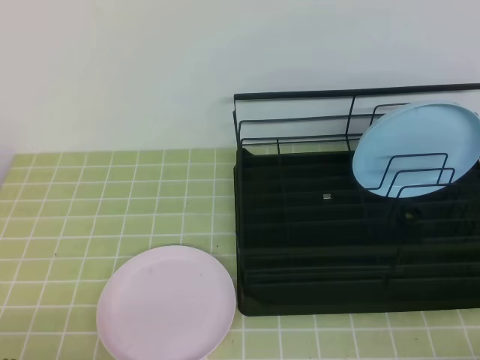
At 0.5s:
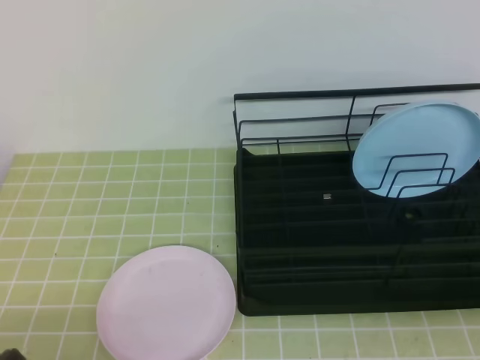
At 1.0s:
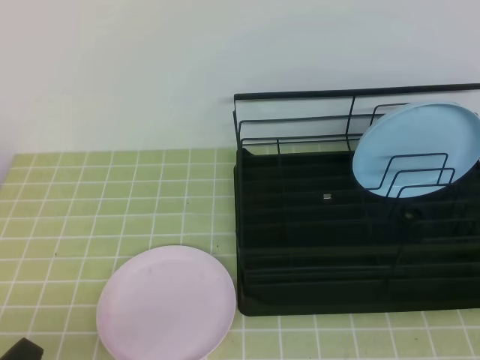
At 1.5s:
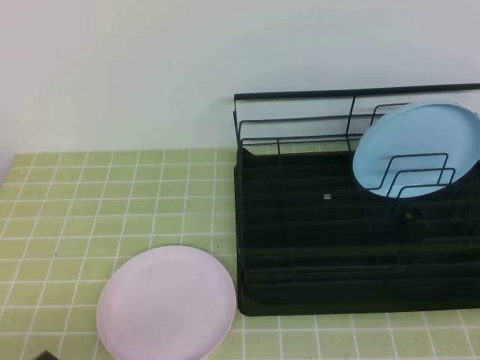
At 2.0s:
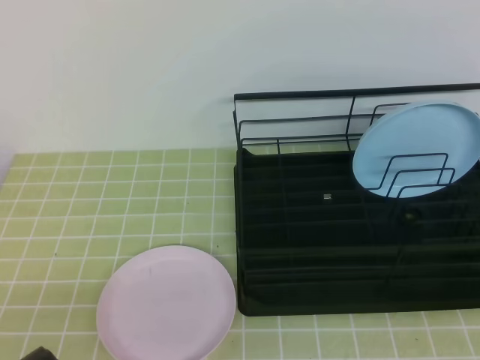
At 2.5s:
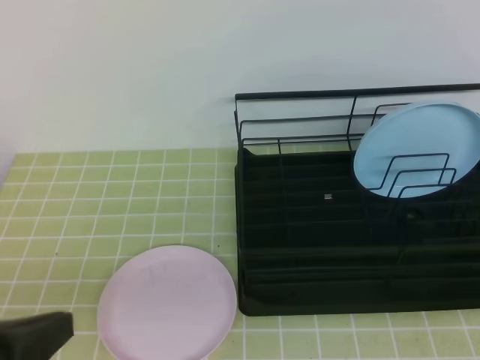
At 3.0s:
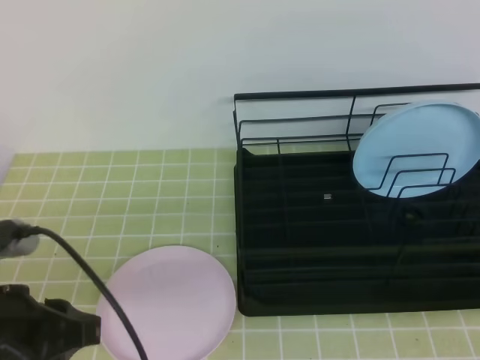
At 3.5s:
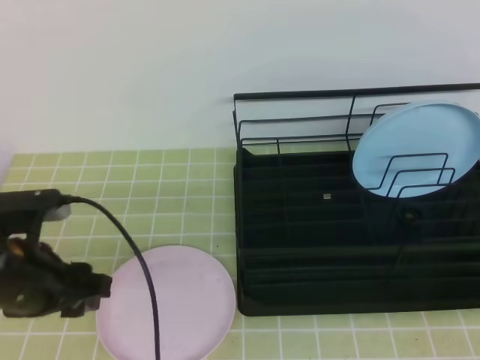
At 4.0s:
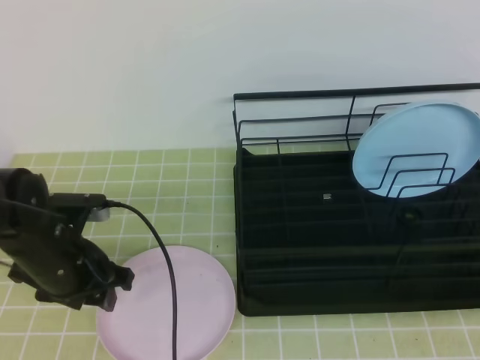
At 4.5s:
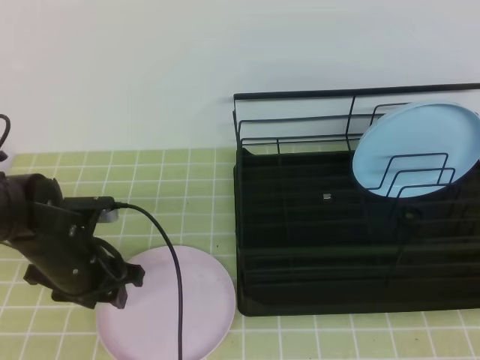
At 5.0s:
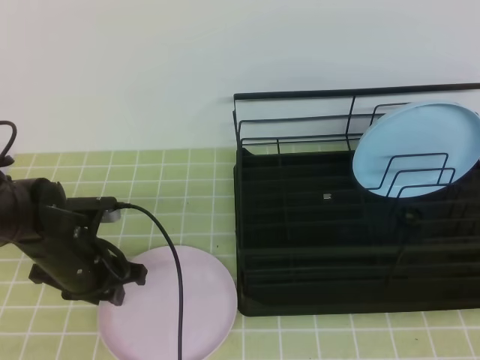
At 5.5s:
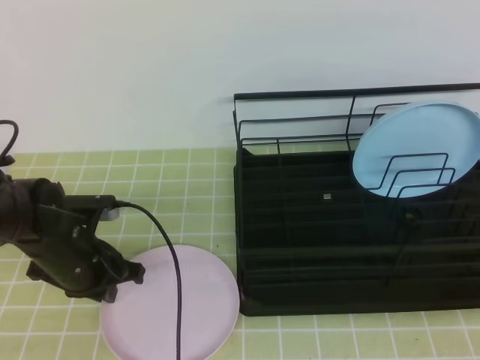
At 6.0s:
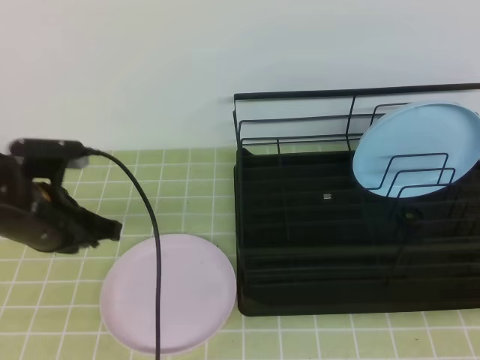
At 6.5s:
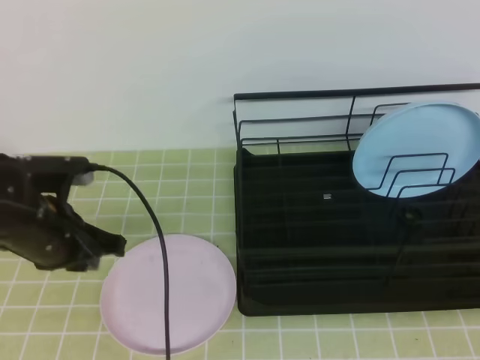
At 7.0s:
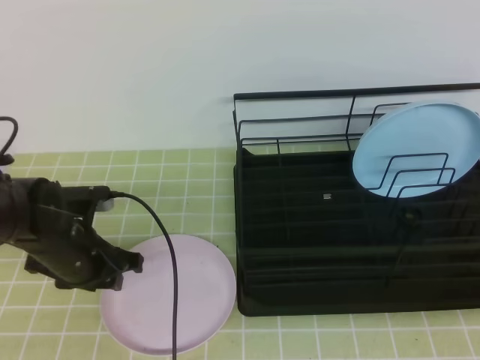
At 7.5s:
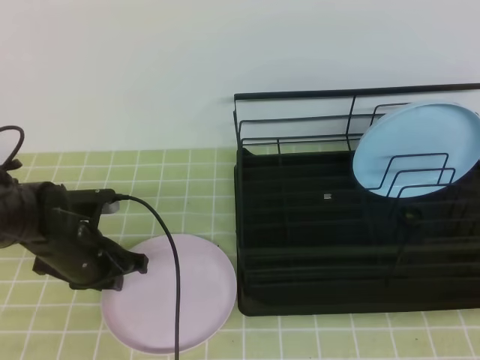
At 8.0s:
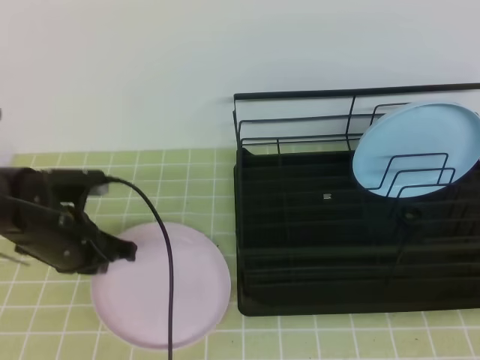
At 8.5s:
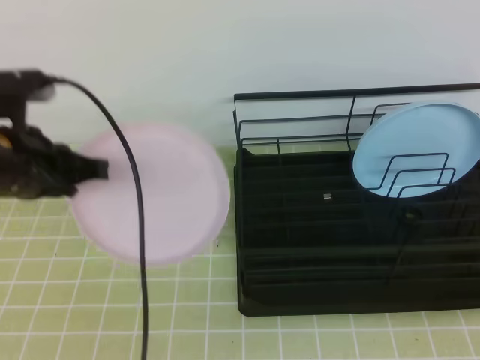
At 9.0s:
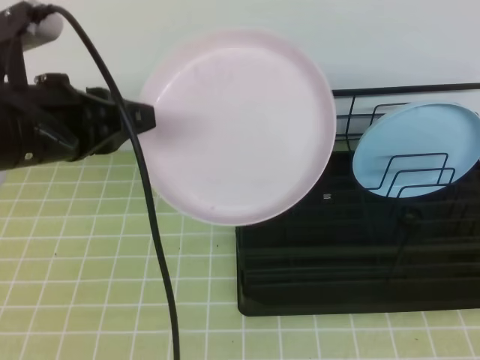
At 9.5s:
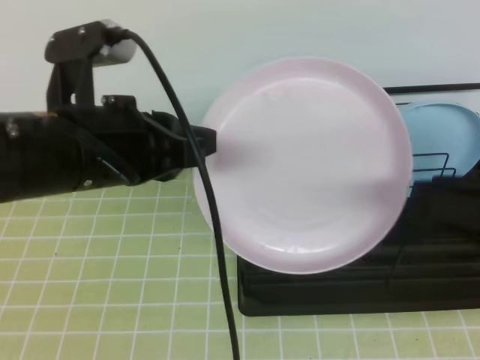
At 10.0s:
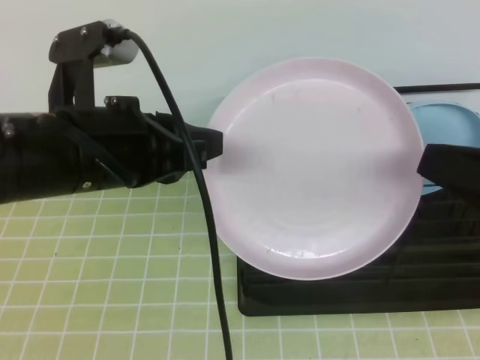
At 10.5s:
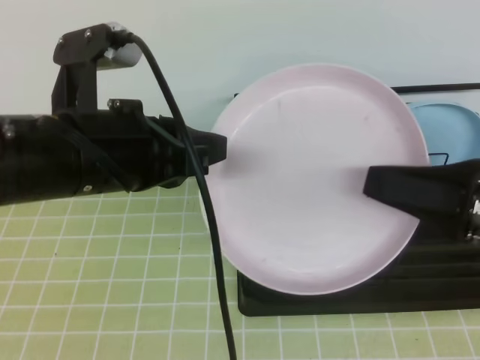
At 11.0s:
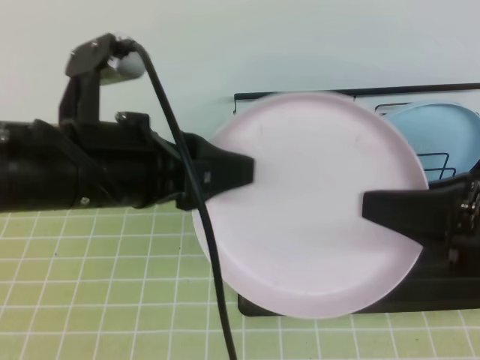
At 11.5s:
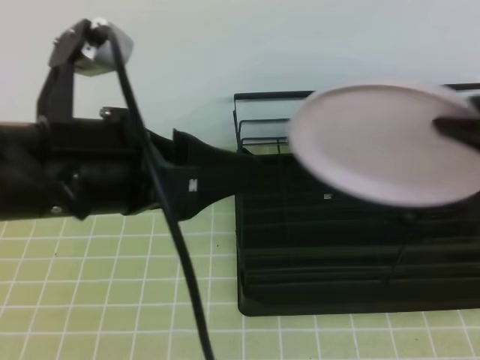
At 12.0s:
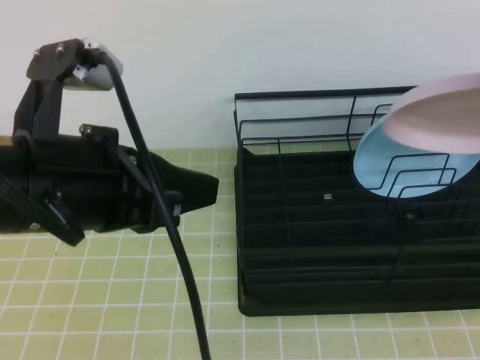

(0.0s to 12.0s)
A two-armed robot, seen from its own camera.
2.0s - 4.0s: The left gripper goes roughly 25 cm forward, and opens up.
4.0s - 6.0s: The left gripper closes up.
6.0s - 8.0s: The left gripper opens, then closes once more.
8.0s - 10.0s: The right gripper shifts about 10 cm forward, and opens its fingers. The left gripper heads upward, backward and to the right, covering roughly 20 cm.
10.0s - 12.0s: The right gripper travels forward by some 10 cm, and closes up. The left gripper changes place by some 5 cm, and opens, then closes once more.

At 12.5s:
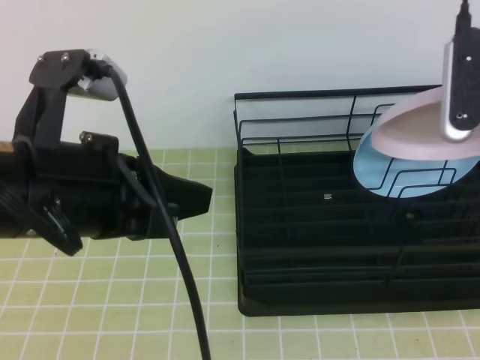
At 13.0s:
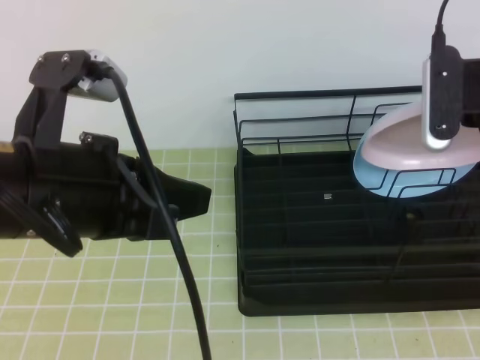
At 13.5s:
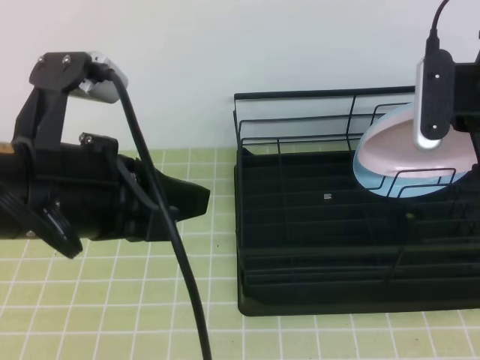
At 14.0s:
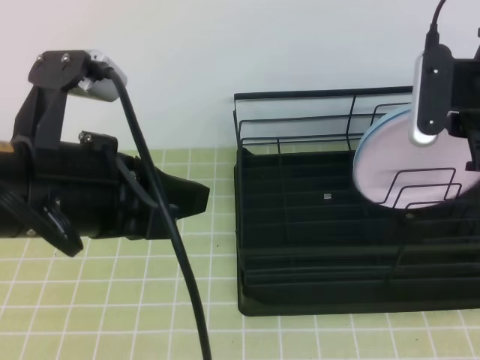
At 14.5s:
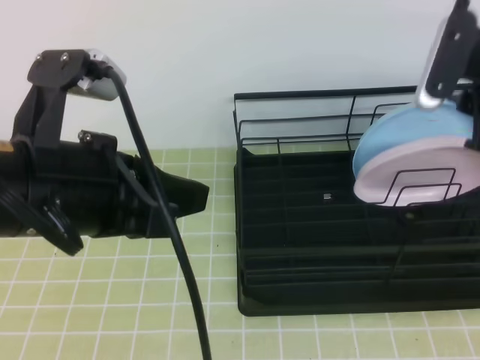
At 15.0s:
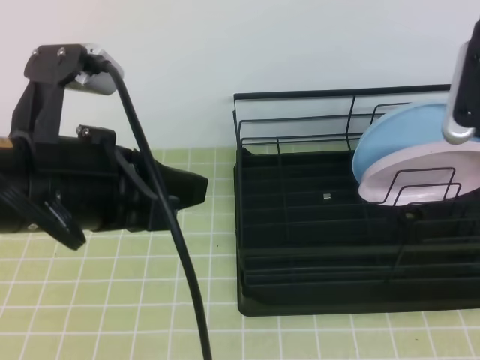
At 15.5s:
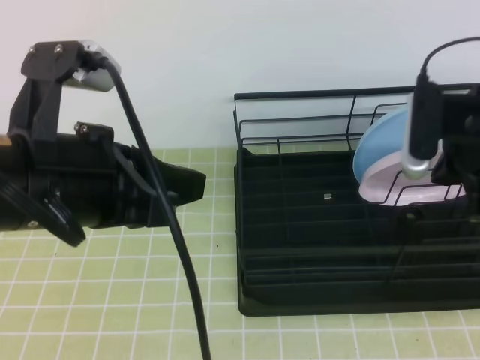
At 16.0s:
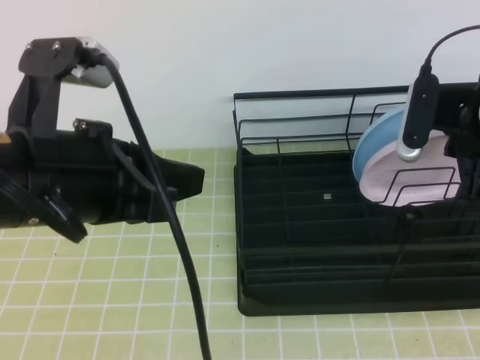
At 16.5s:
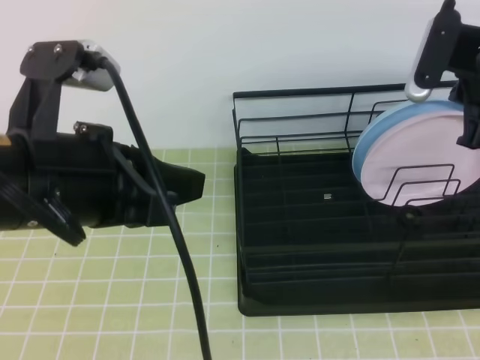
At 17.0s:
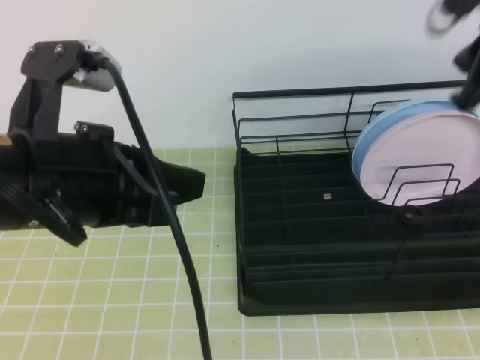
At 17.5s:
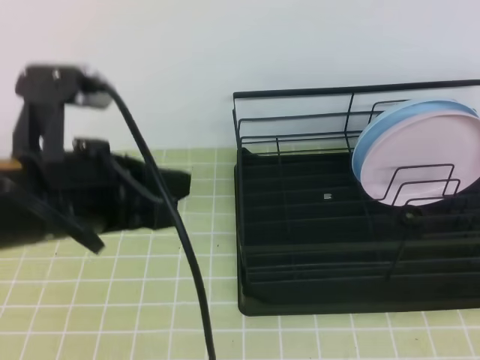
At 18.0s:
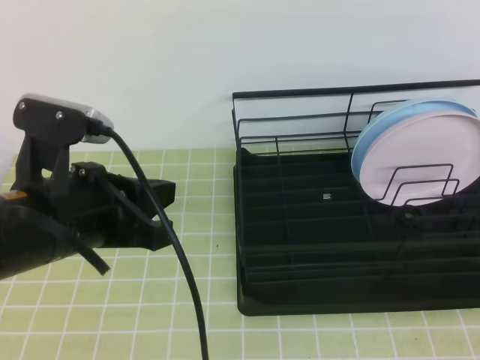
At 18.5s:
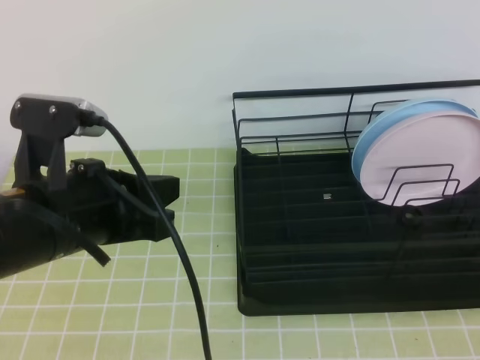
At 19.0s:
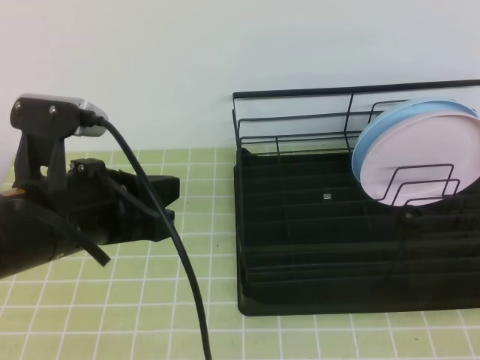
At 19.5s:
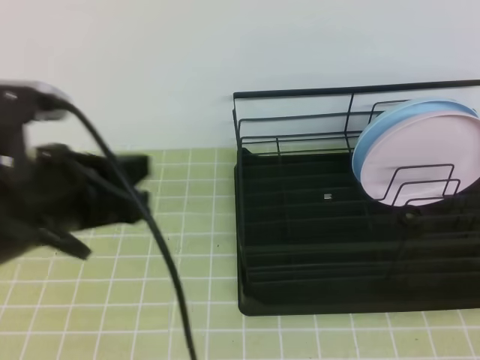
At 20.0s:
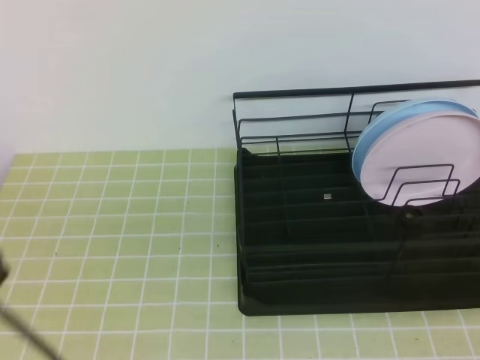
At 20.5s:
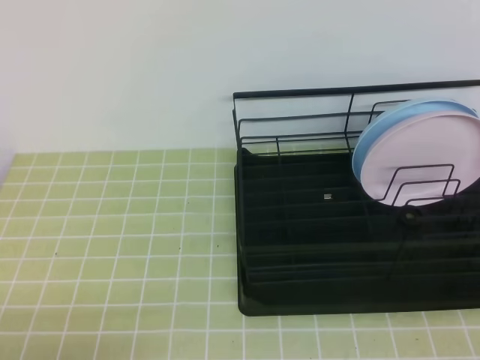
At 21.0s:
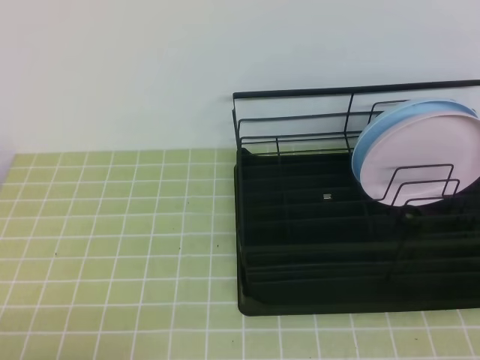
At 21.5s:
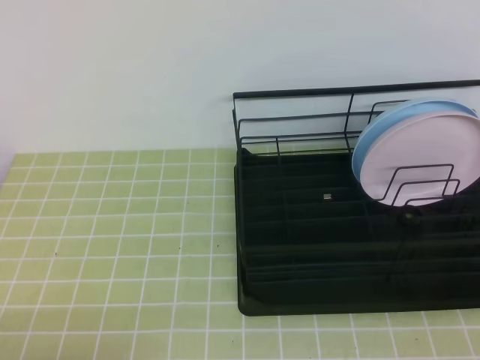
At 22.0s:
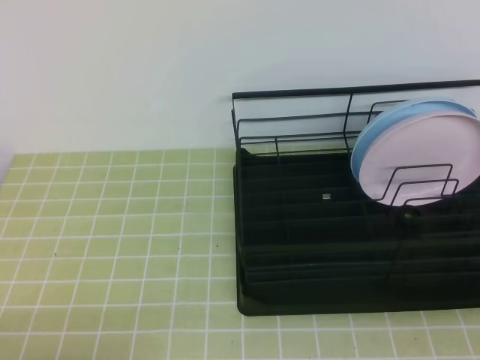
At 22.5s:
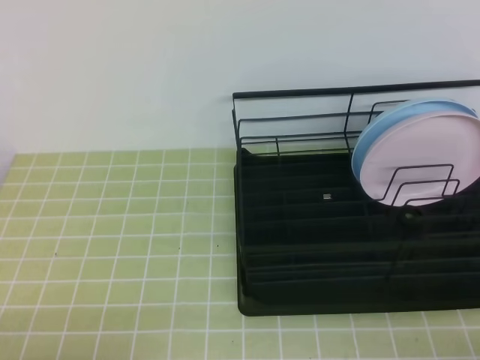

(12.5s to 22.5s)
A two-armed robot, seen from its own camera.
12.5s - 14.5s: The right gripper opens its fingers.
14.5s - 16.5s: The right gripper closes.
16.5s - 18.5s: The right gripper is displaced backward by roughly 30 cm. Meanwhile the left gripper heads downward, covering approximately 5 cm.
18.5s - 20.5s: The left gripper moves backward, downward and to the left, roughly 20 cm.
20.5s - 22.5s: The right gripper heads downward, covering about 10 cm.

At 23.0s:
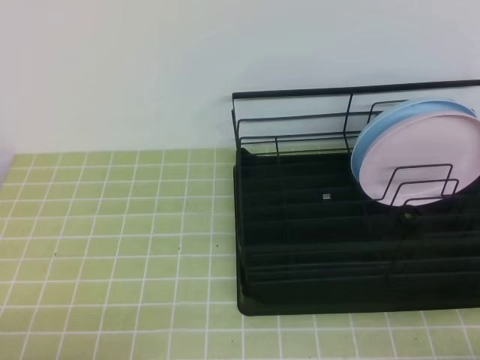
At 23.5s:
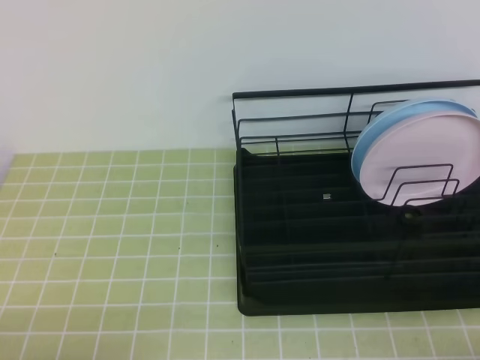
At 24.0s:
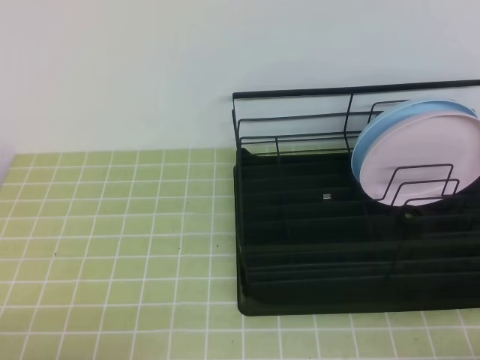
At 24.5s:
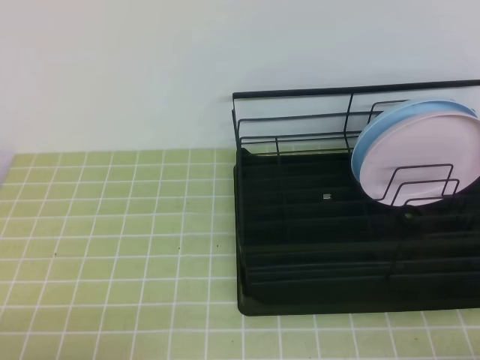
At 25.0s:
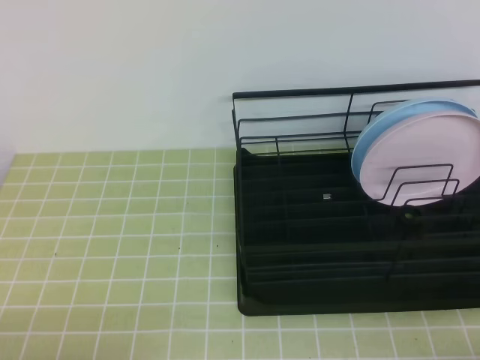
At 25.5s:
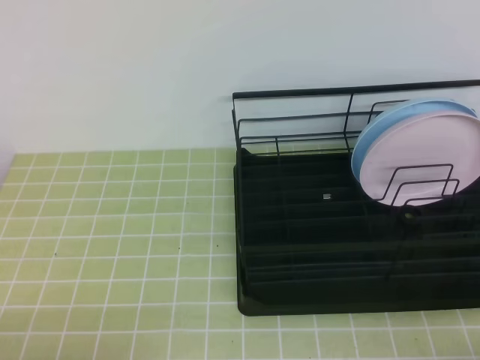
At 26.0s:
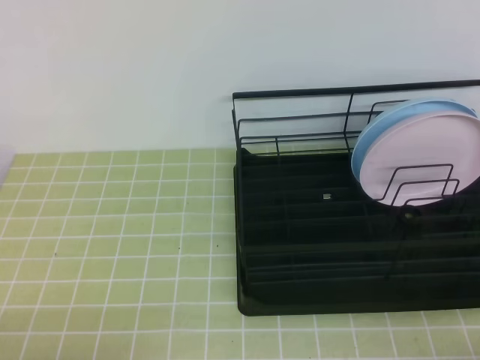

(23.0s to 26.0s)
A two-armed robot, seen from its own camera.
23.0s - 26.0s: Neither gripper changes place.
